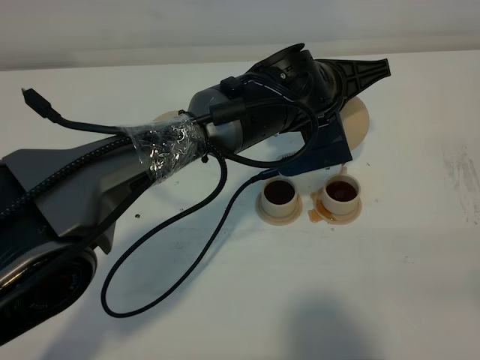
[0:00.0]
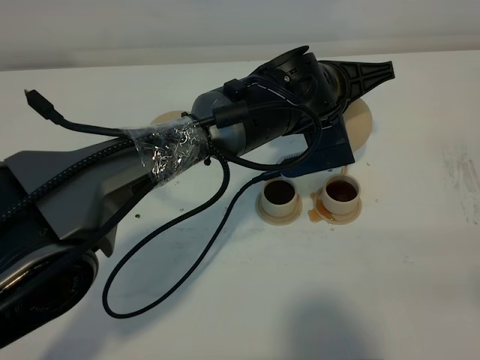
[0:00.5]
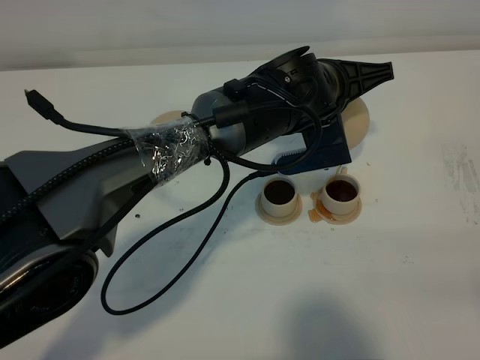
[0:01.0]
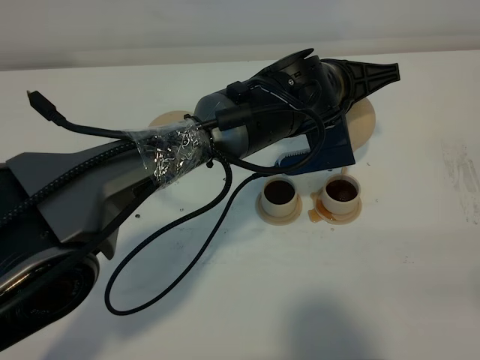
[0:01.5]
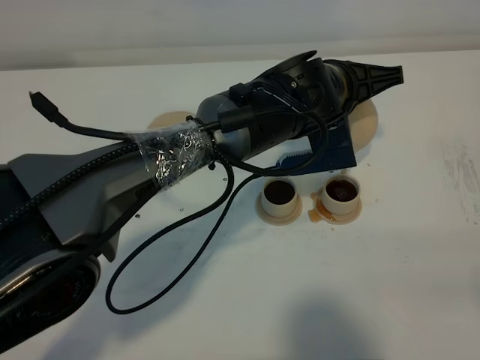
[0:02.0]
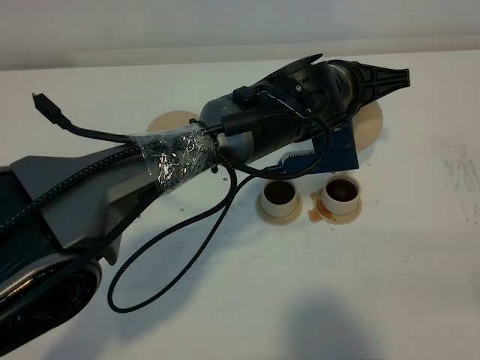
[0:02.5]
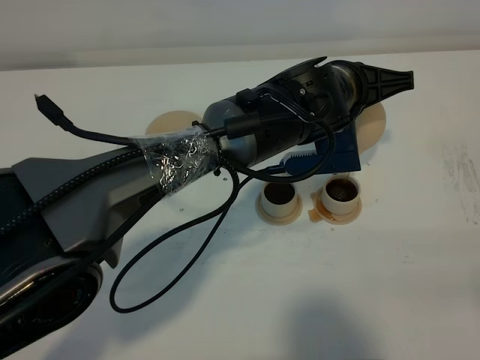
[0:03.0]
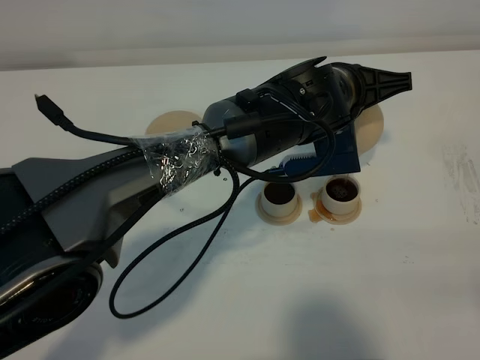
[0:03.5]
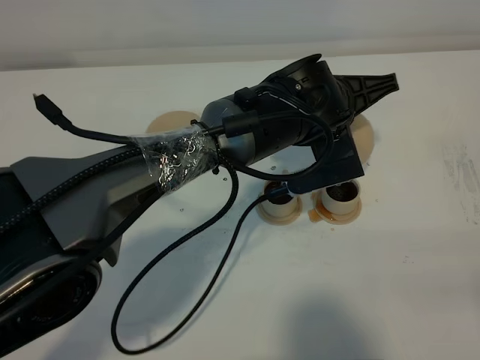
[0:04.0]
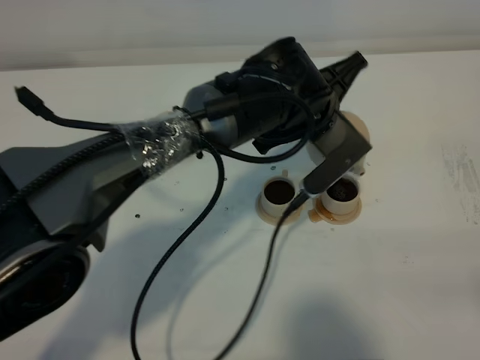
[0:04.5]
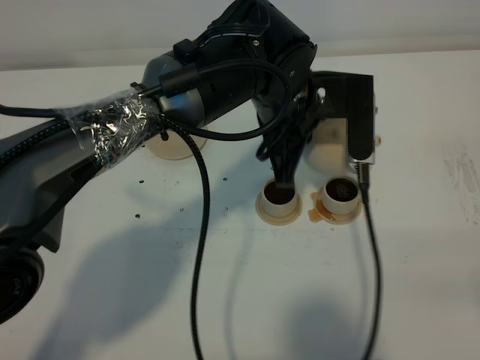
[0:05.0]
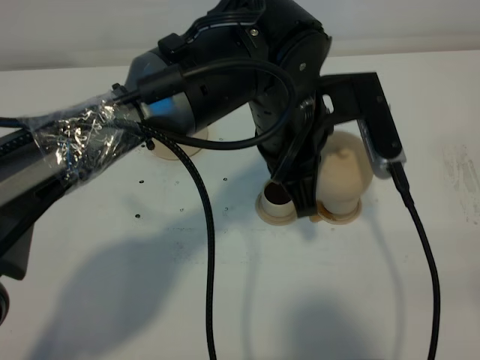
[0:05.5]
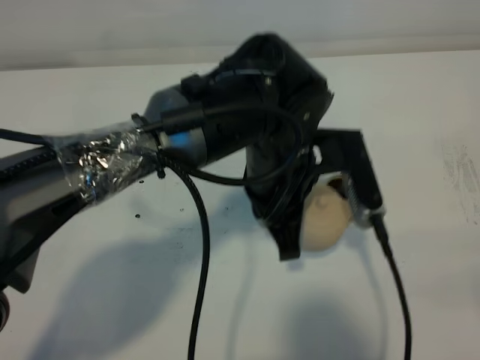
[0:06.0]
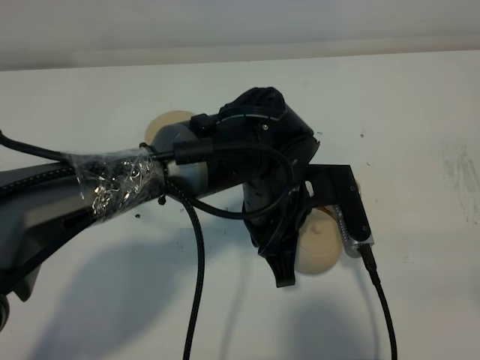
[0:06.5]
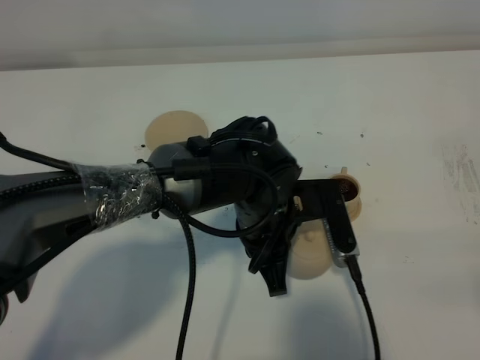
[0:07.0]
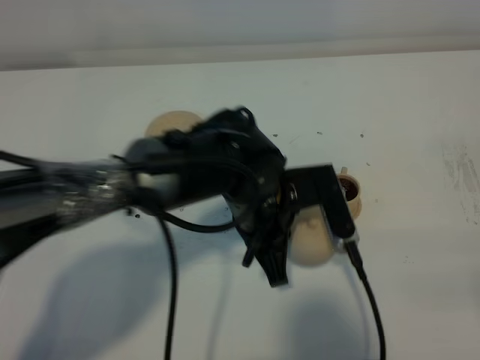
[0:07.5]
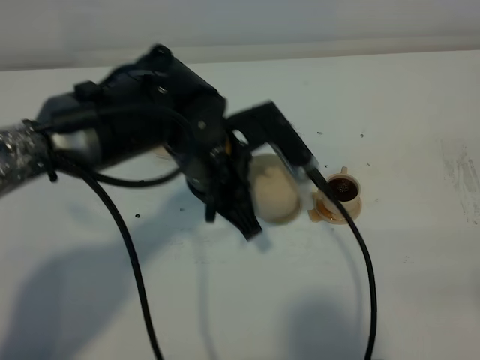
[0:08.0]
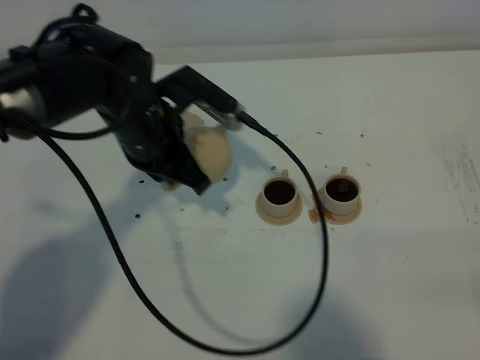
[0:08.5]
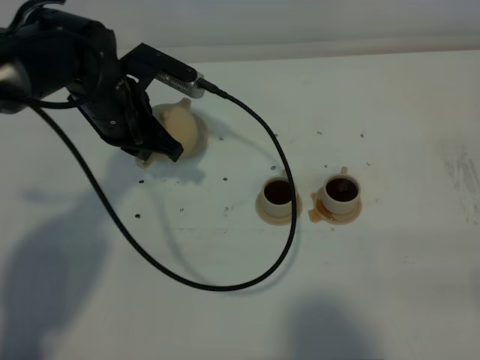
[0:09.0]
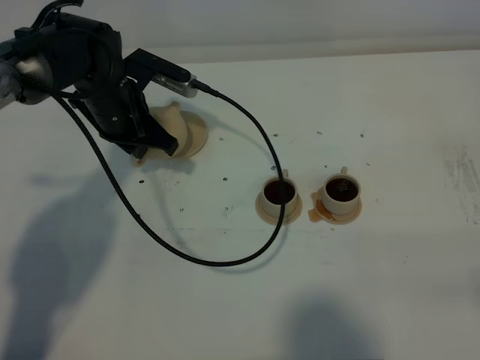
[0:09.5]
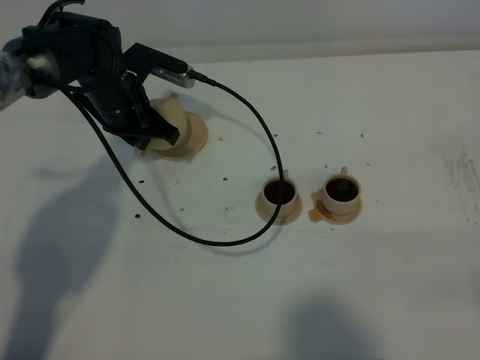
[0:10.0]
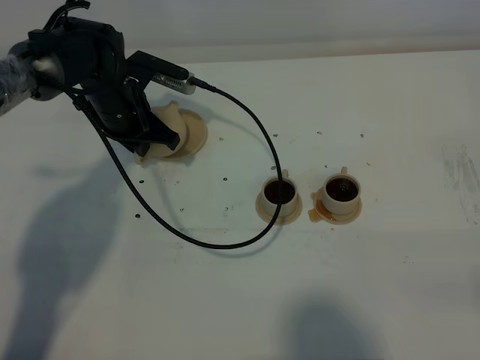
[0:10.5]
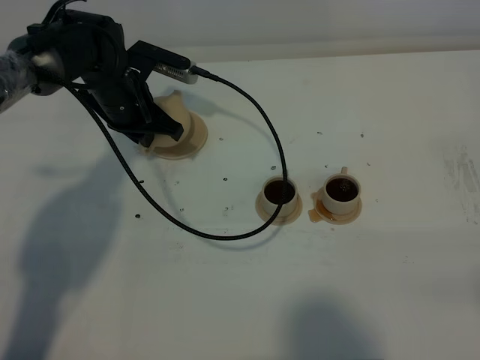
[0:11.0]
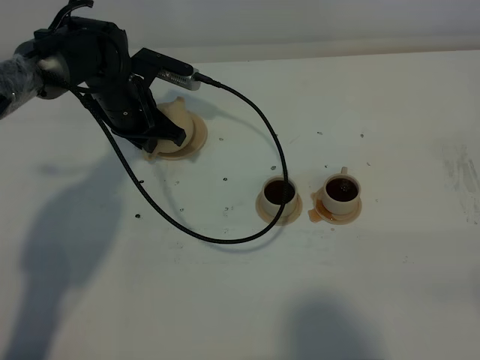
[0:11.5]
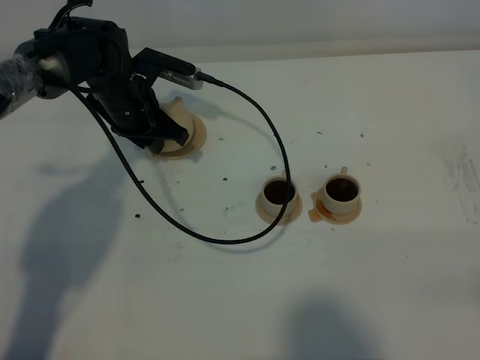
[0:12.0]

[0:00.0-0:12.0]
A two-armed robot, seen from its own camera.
Task of the whole recording: grasp the brown teapot and pour the tea into the two brown teacups one by one, put the brown teapot back in its original place.
Step, 0:00.0 to 0:04.0: Pour tea into the teacup with the left gripper.
0:00.0 to 0:04.0: The grippers make only small movements.
0:04.0 to 0:06.0: The left gripper is displaced backward by approximately 10 cm.
0:06.0 to 0:08.0: The left gripper heads to the left, covering some 10 cm.
0:08.0 to 0:10.0: The left gripper heads forward and to the left, covering some 20 cm.
0:10.0 to 0:12.0: Neither gripper changes place.

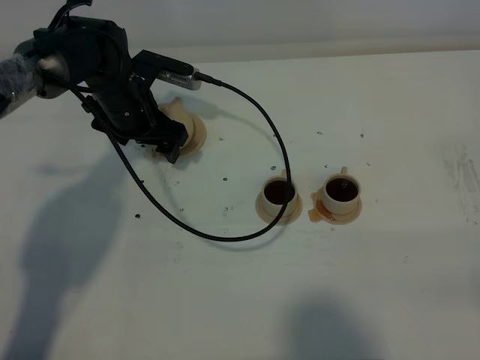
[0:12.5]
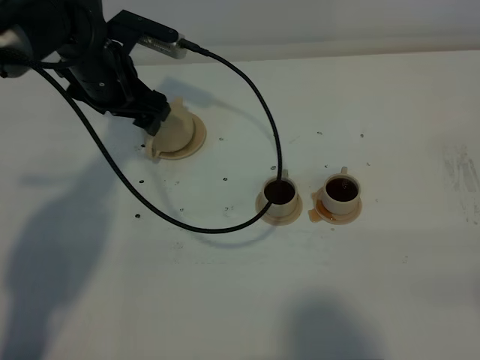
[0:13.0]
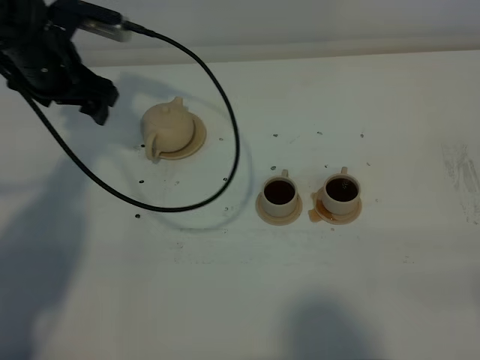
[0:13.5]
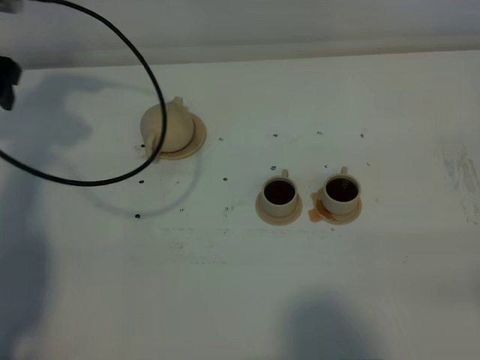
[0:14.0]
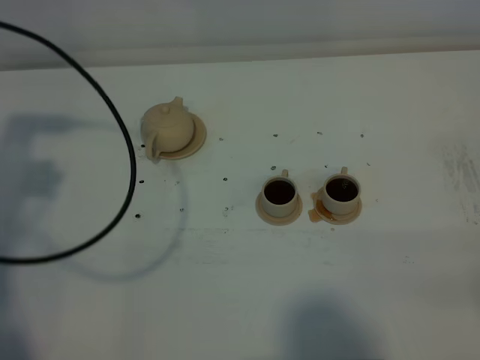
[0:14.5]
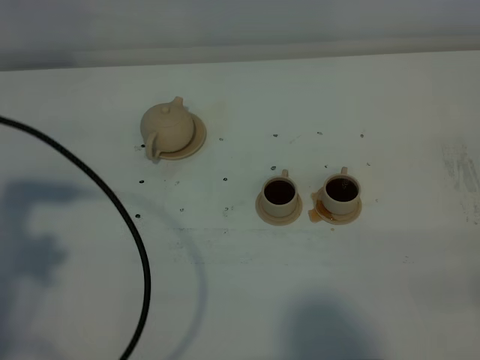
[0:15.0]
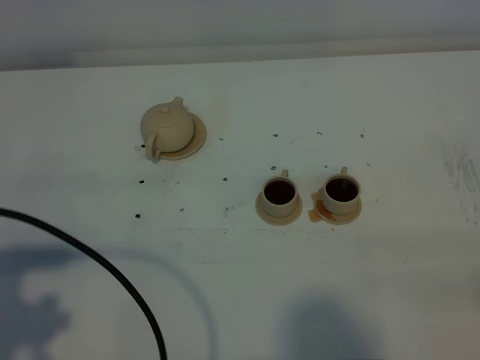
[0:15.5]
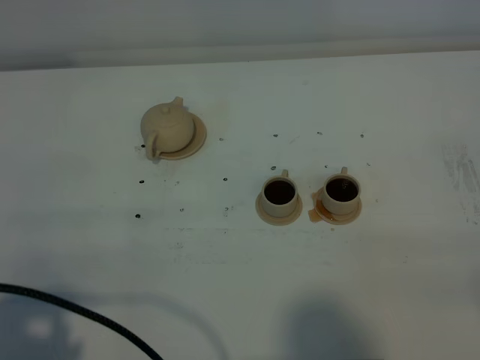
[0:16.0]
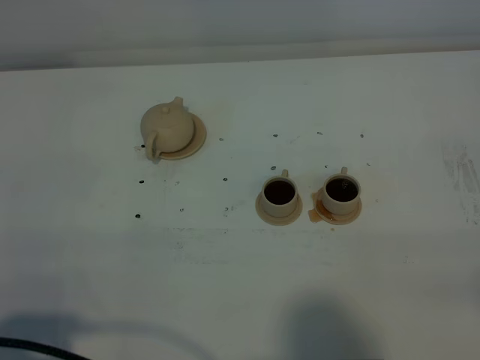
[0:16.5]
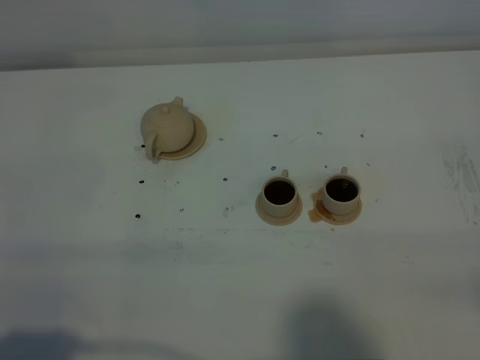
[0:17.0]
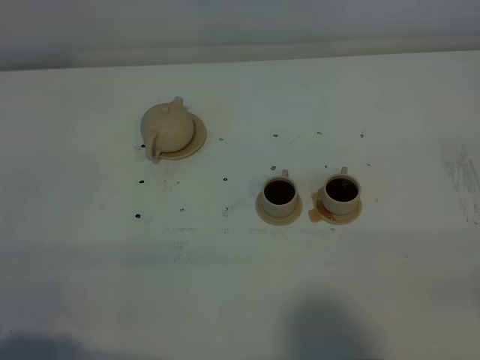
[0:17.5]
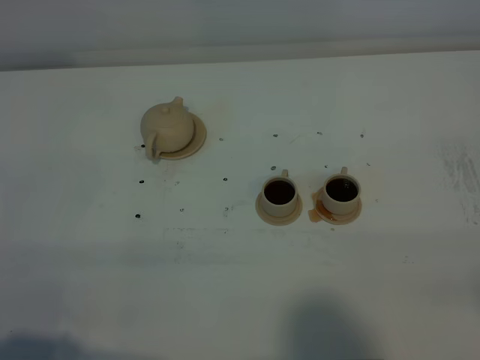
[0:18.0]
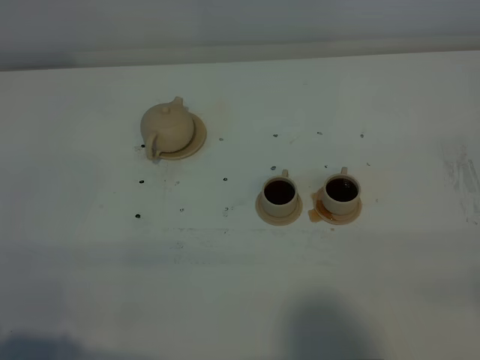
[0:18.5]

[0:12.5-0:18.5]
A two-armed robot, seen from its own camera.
Task of the whole recording: grasp the brown teapot and pour the tea into the two brown teacups one by one, put the brown teapot back in its original place.
0:12.5 to 0:14.5: The left gripper heads upward, to the left and backward, covering some 30 cm.
0:14.5 to 0:16.5: The left gripper heads backward, covering about 25 cm.
0:16.5 to 0:18.5: The grippers make only small movements.
